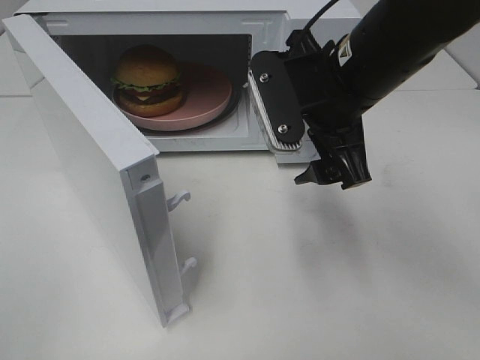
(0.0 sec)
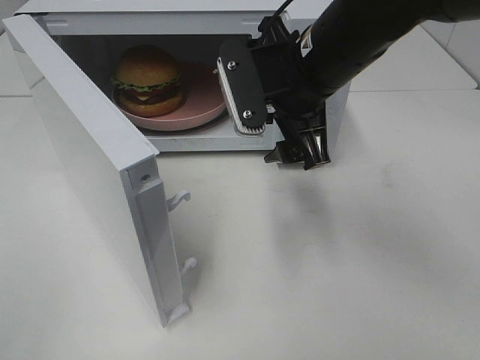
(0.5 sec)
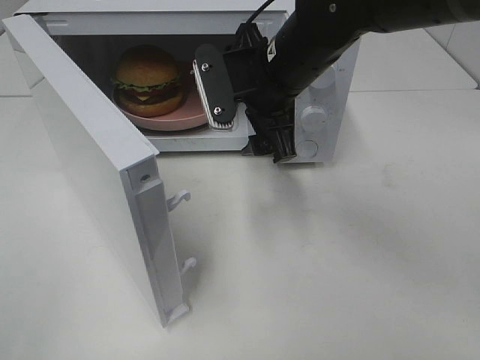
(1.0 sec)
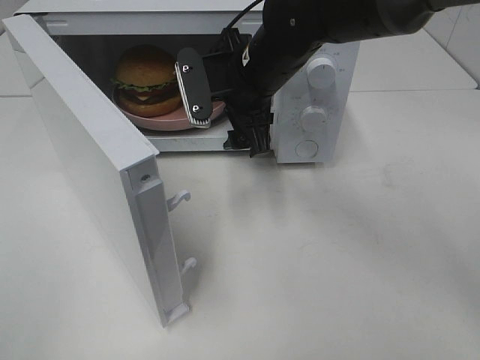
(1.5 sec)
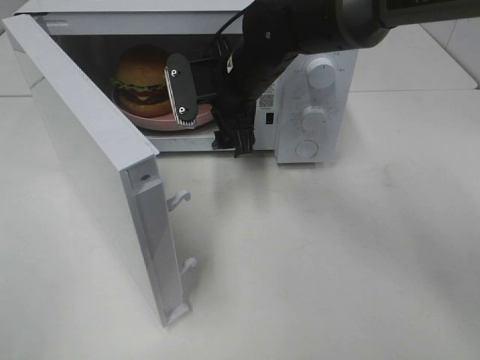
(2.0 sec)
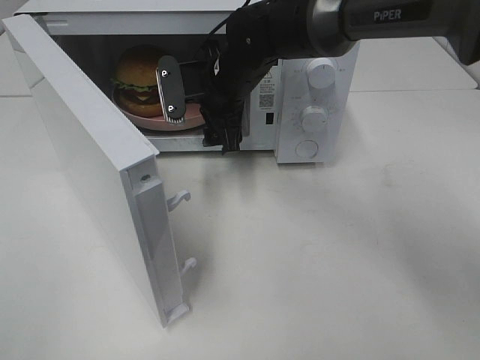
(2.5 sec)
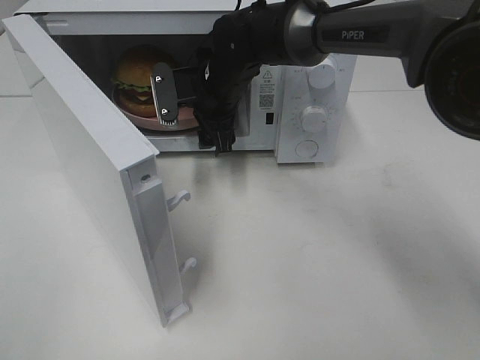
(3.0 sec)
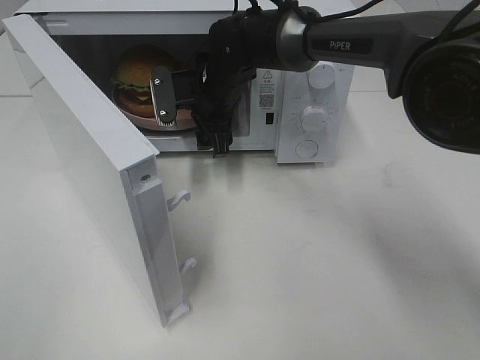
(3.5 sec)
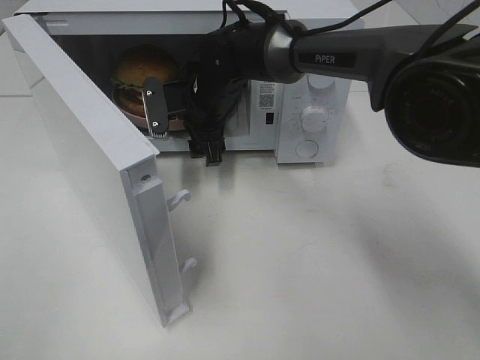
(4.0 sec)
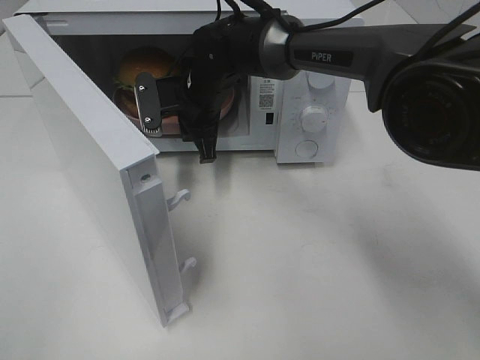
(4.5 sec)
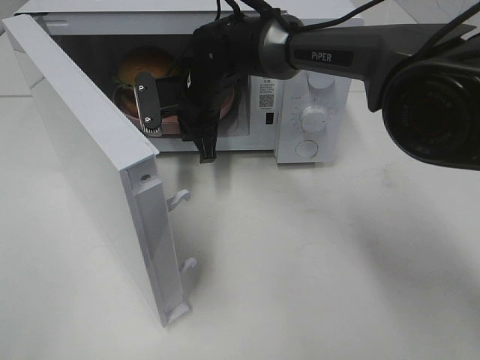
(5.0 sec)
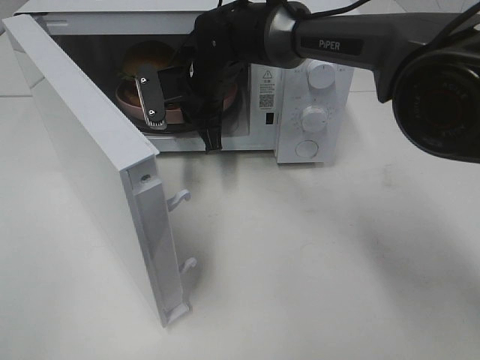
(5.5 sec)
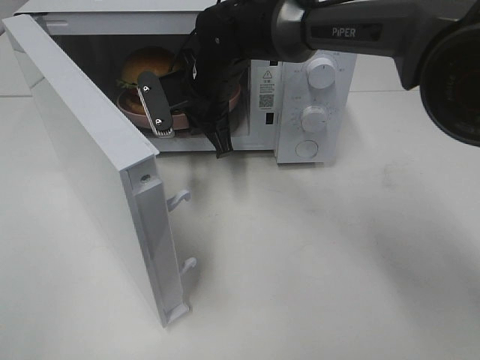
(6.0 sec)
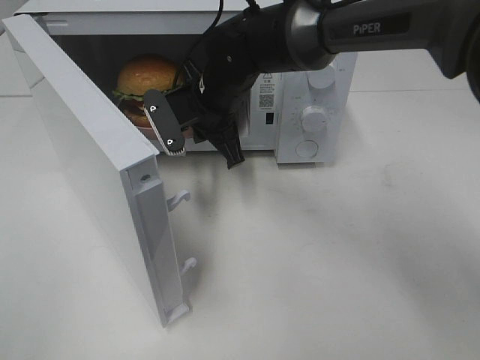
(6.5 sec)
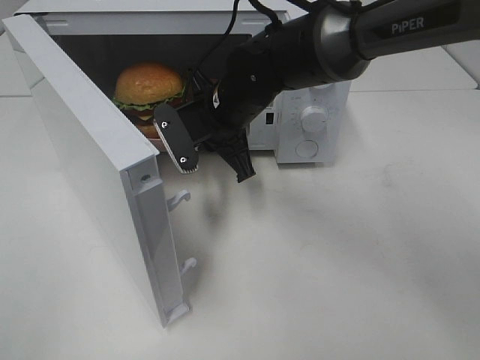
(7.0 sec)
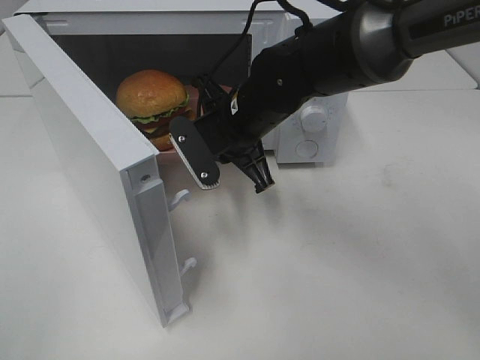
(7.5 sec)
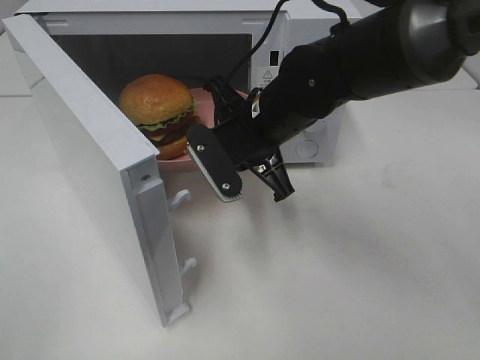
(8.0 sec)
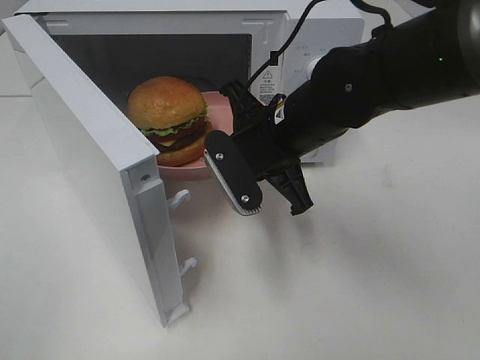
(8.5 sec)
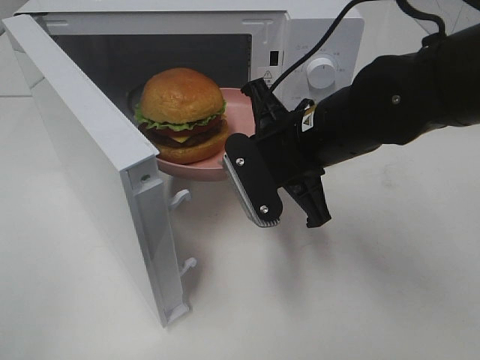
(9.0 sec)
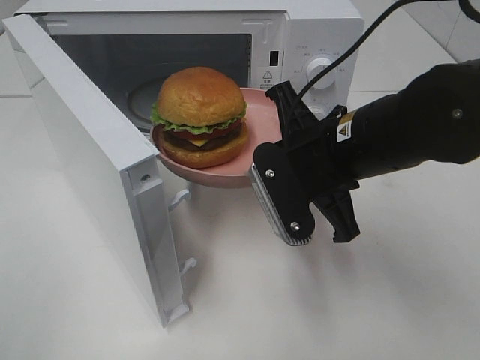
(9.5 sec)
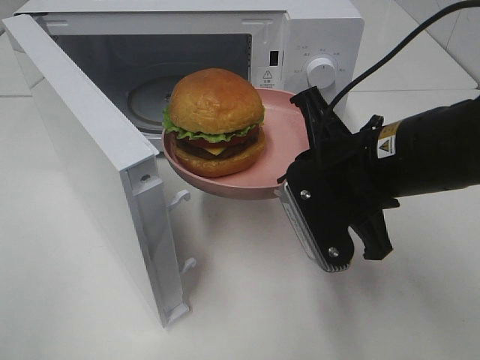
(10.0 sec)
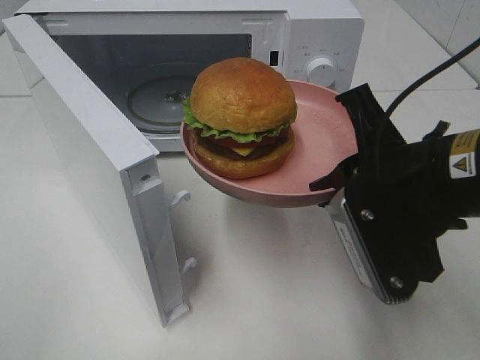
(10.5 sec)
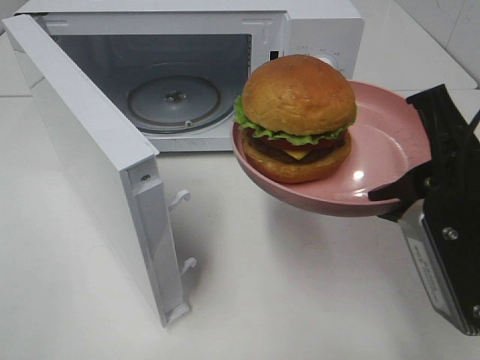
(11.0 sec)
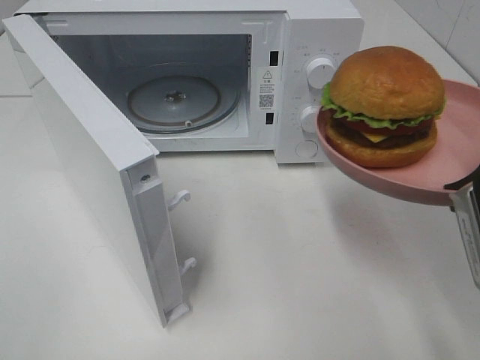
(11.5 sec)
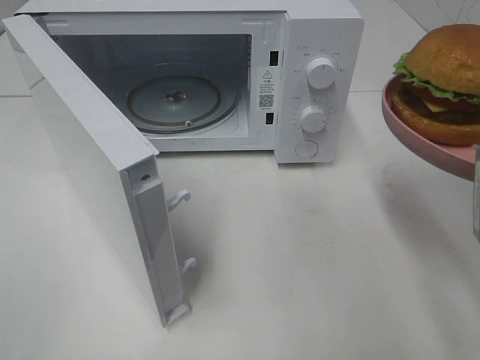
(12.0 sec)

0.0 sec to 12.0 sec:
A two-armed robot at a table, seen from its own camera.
Task of the whole recording: Heat the burger.
Step, 0.0 sec to 4.5 sec: Right hand: grab the plate with the hamburger.
0.0 sec to 2.0 sec: The right gripper moves forward, to the left and downward, approximately 15 cm.
2.0 sec to 4.0 sec: The right gripper moves about 10 cm.
4.0 sec to 6.0 sec: The right gripper closes its fingers.
6.0 sec to 8.0 sec: The right gripper goes roughly 10 cm backward and to the right.
8.0 sec to 10.0 sec: The right gripper travels backward and to the right by about 15 cm.
10.0 sec to 12.0 sec: The right gripper travels to the right and backward by roughly 15 cm.

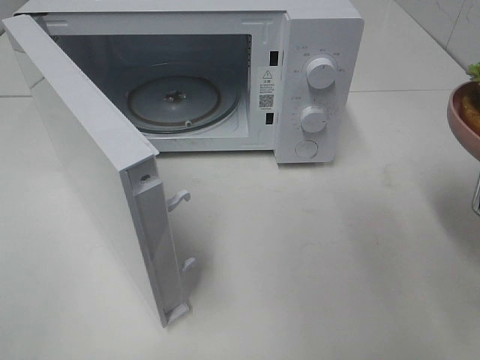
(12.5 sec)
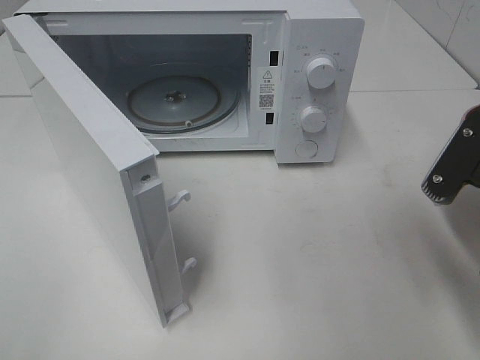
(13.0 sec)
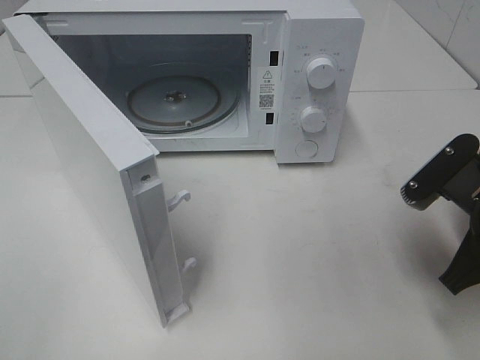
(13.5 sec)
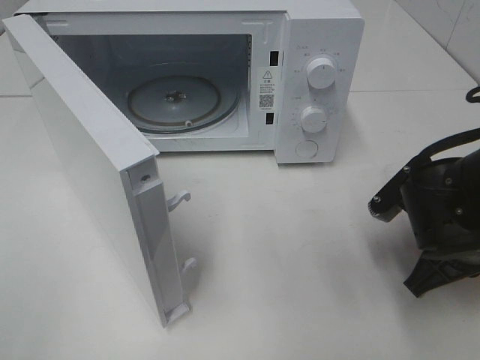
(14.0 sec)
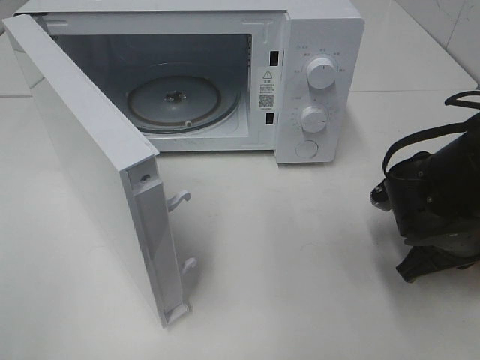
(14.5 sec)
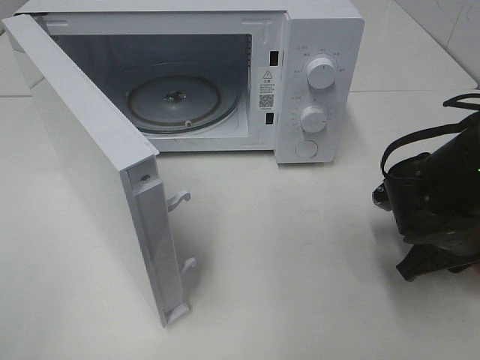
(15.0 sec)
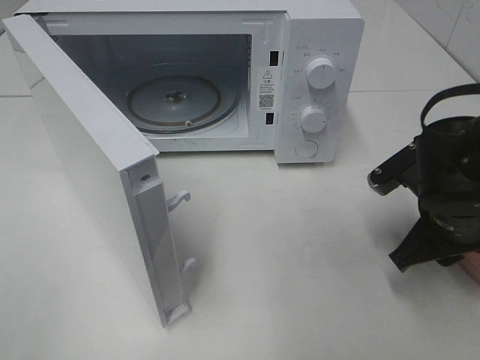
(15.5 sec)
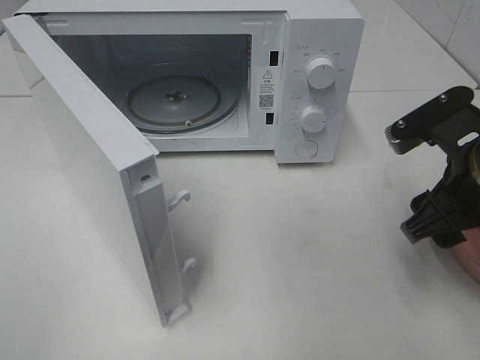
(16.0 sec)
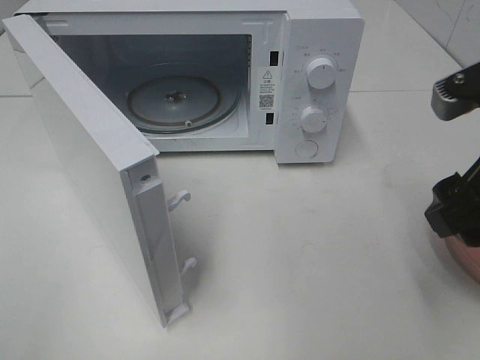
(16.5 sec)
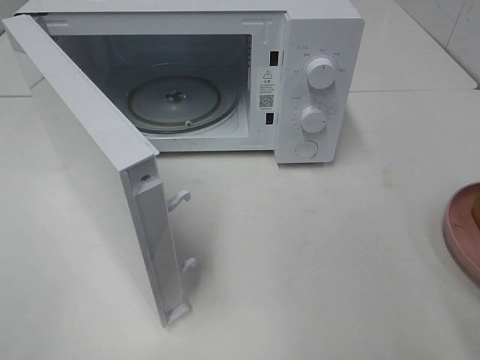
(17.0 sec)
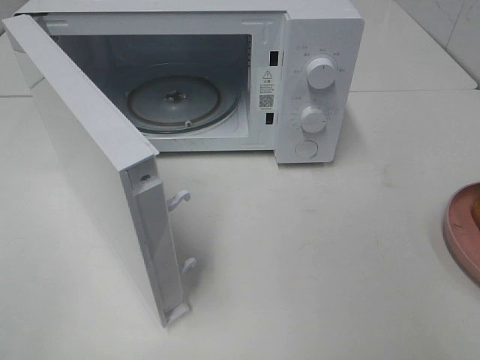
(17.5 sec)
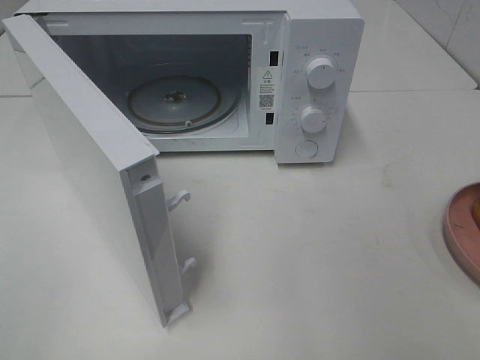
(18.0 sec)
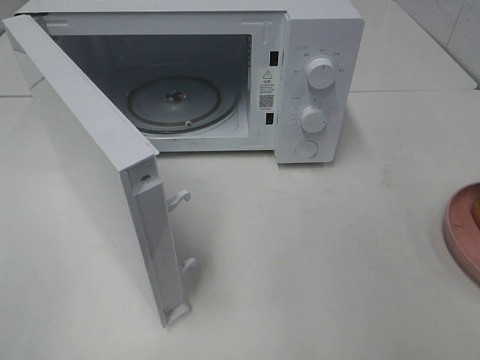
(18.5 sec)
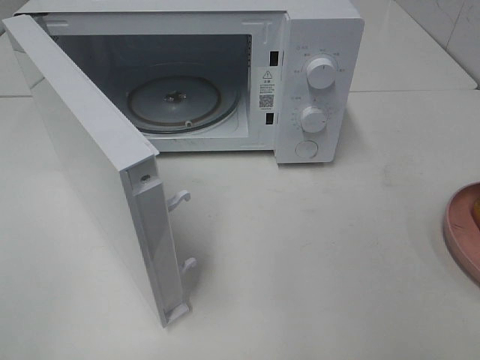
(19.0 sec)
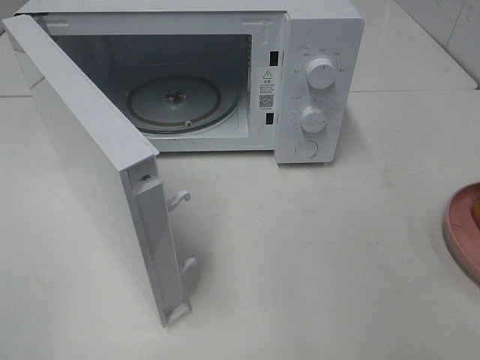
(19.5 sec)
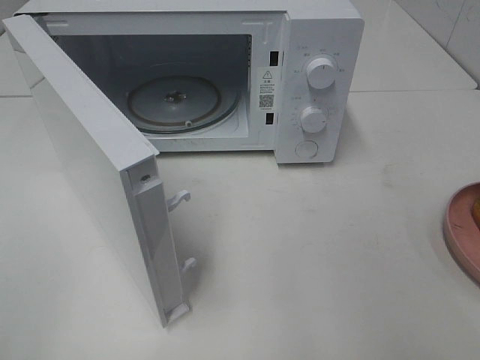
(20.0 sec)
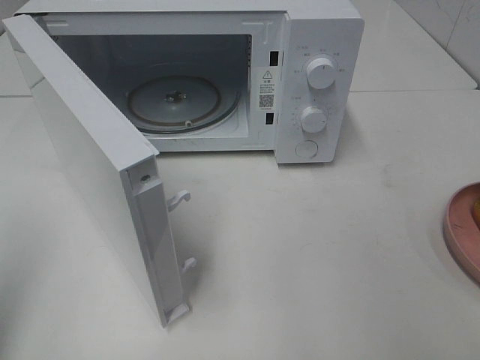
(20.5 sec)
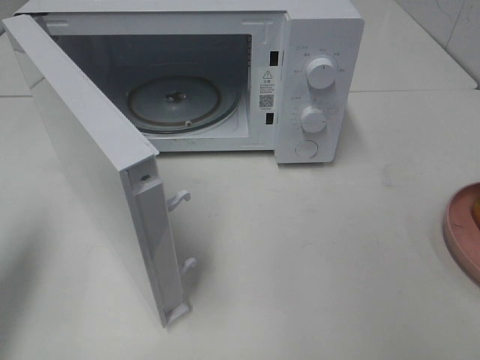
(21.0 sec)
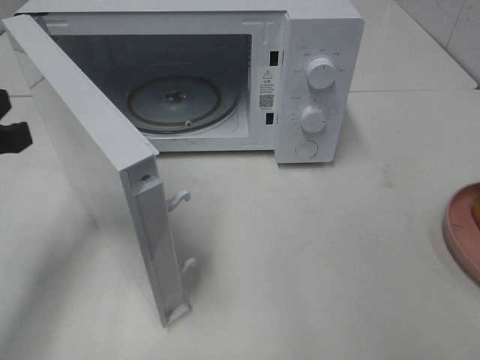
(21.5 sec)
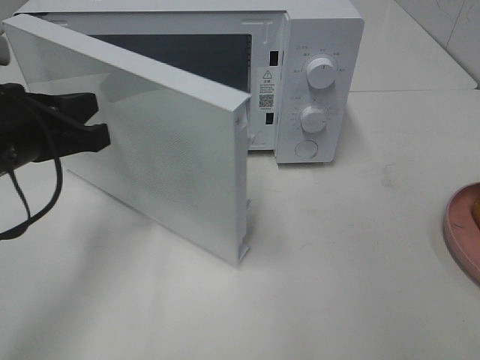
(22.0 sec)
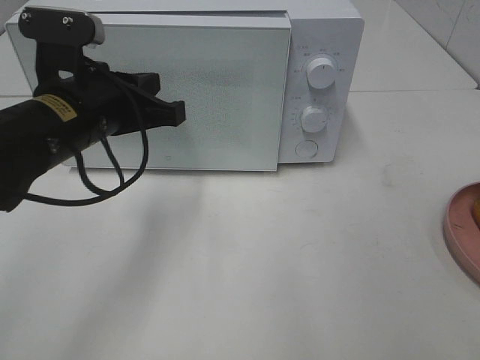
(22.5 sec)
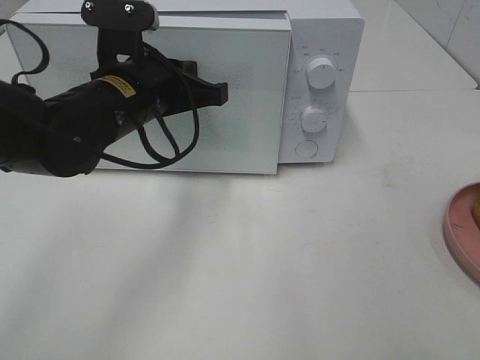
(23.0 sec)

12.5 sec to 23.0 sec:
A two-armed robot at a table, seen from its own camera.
Task of the whole recording: Heat the burger.
Step, 12.5 sec to 15.5 sec: Right hand: place the plate on the table.
12.5 sec to 14.5 sec: The right gripper is displaced downward and forward by about 15 cm.
14.5 sec to 16.5 sec: The right gripper heads upward and backward, covering roughly 15 cm, and opens its fingers.
16.5 sec to 19.0 sec: The right gripper heads backward and to the right, covering some 20 cm.
19.0 sec to 21.0 sec: The left gripper moves forward, some 15 cm, and closes its fingers.
21.0 sec to 23.0 sec: The left gripper shifts approximately 25 cm to the right and forward.

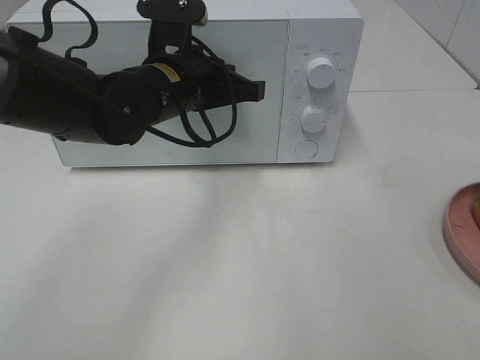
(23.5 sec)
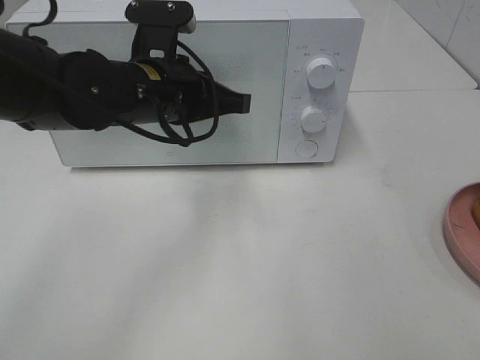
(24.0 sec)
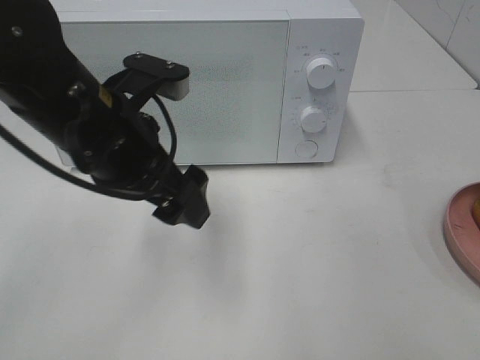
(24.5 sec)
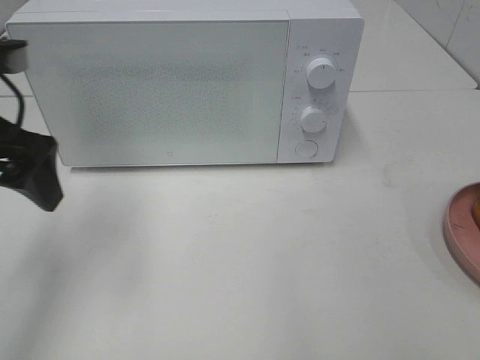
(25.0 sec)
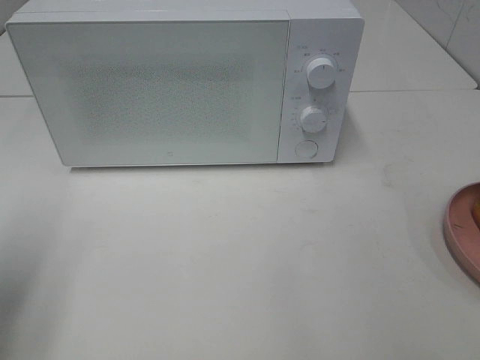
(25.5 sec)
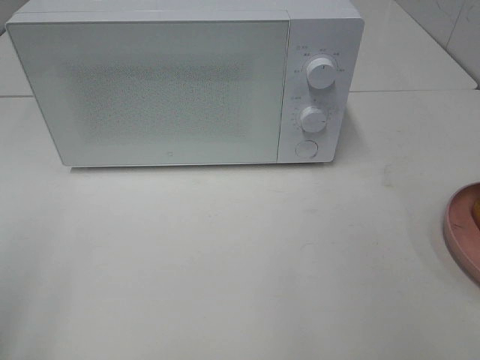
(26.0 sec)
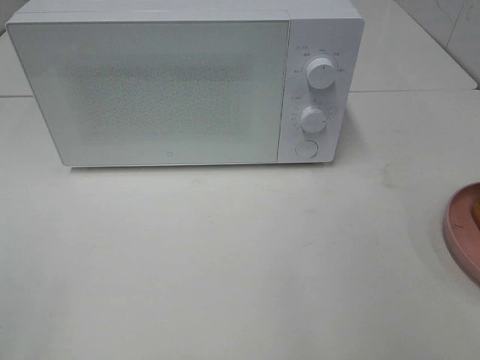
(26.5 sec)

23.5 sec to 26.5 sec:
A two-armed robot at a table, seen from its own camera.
Task of the whole recording: Heat the burger.
23.5 sec to 25.0 sec: The left gripper goes roughly 20 cm to the left and backward, and opens.
25.0 sec to 26.5 sec: The left gripper heads backward, covering approximately 25 cm.
